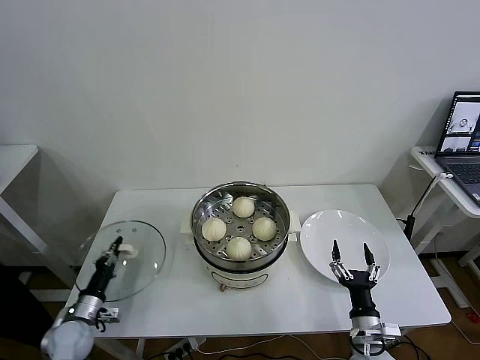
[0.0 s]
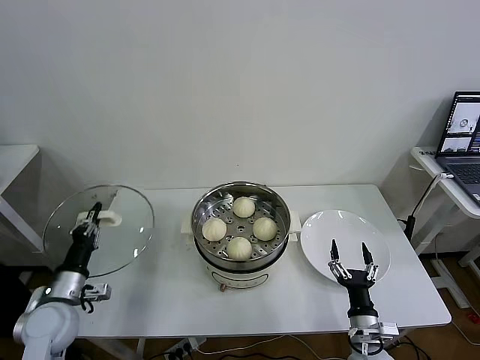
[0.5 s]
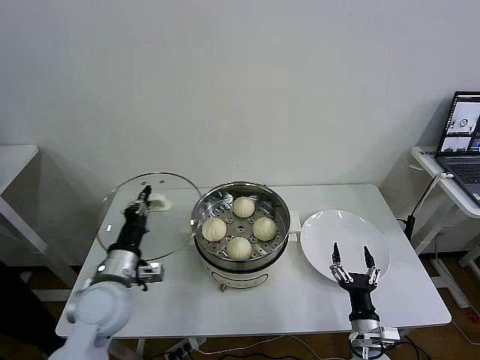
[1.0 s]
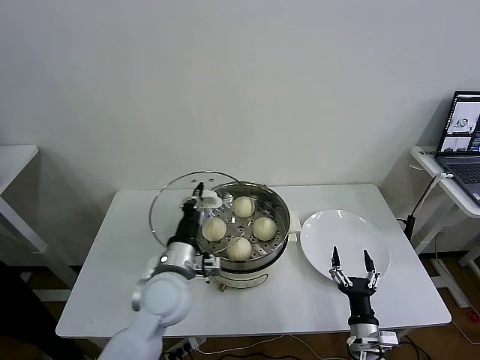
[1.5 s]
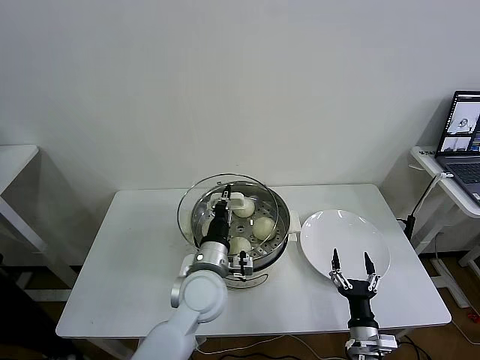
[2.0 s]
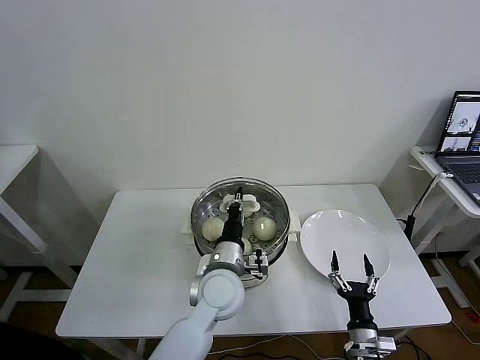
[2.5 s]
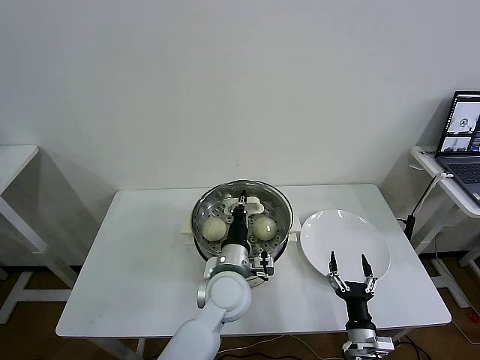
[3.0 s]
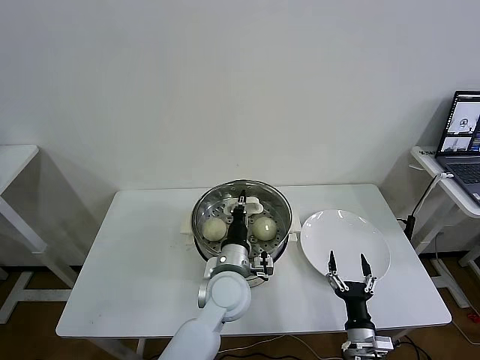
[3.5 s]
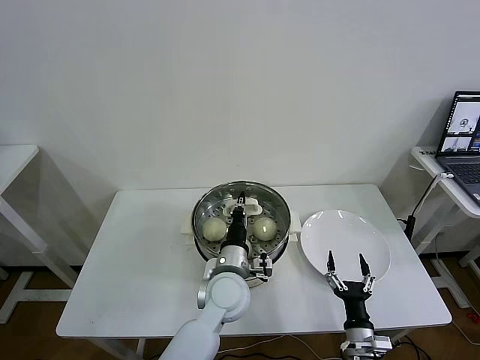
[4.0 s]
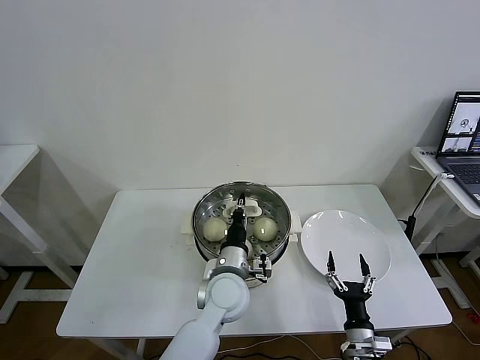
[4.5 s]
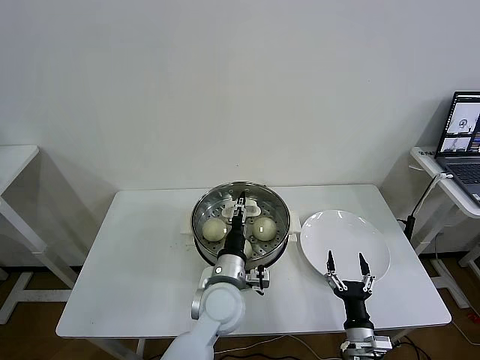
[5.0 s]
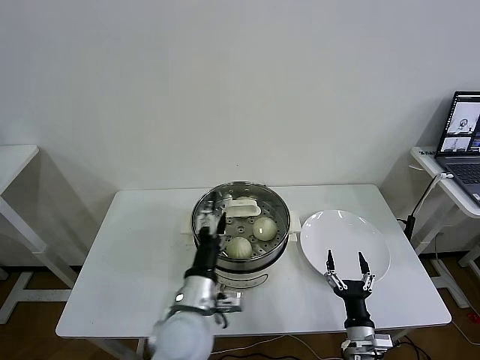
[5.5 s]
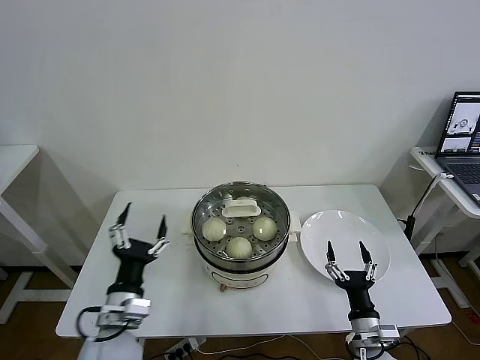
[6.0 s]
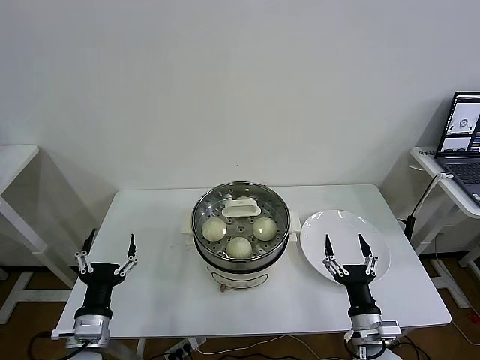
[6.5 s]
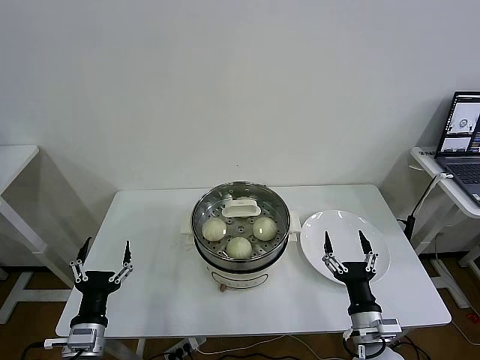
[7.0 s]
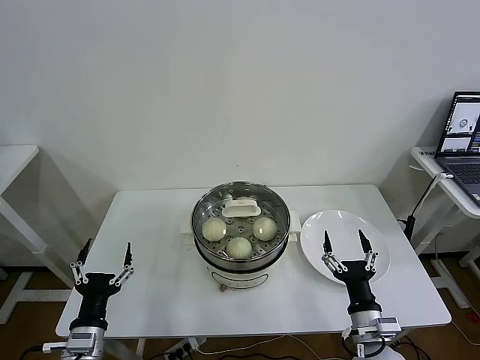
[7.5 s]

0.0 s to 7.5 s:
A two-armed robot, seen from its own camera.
Task of the whole recording: take steamed baozi put them in steamer then cover it.
Step, 0.0 to 5.0 s: Place the pot lid on the steamer with left gripper.
0.0 to 2.0 s: The left gripper travels to the right and upward by approximately 40 cm.
2.0 to 4.0 s: The left gripper travels to the right by roughly 5 cm.
4.0 to 5.5 s: The left gripper moves backward and to the left, some 10 cm, and opens up.
5.5 to 7.5 s: The right gripper heads upward, covering about 10 cm; the left gripper is displaced to the left by some 20 cm.

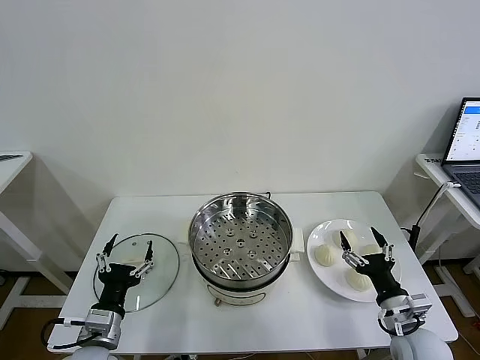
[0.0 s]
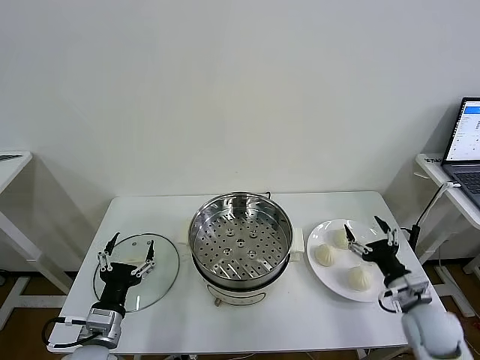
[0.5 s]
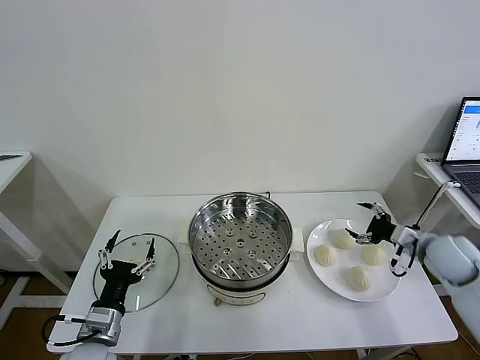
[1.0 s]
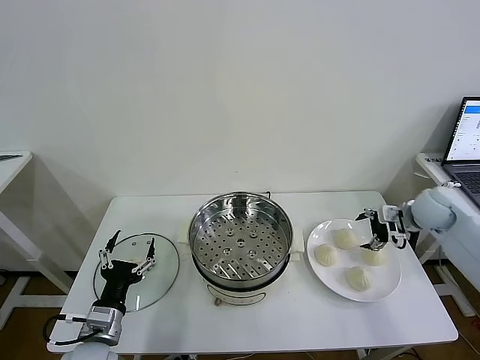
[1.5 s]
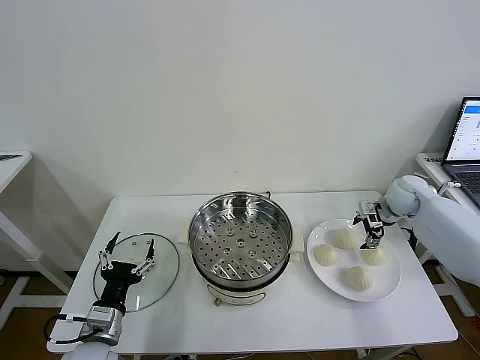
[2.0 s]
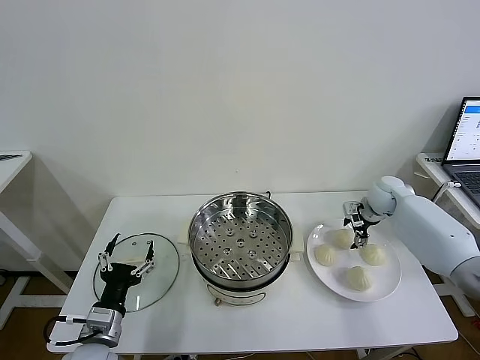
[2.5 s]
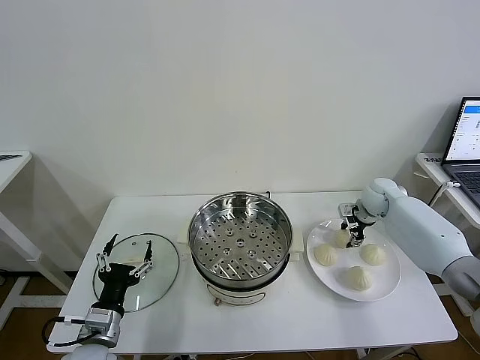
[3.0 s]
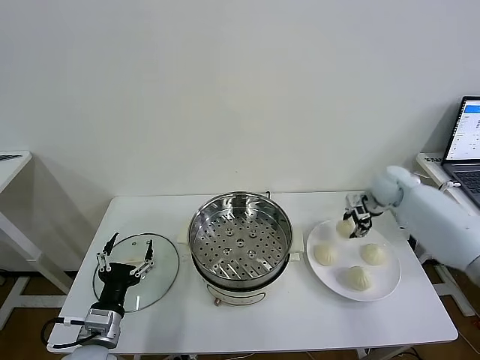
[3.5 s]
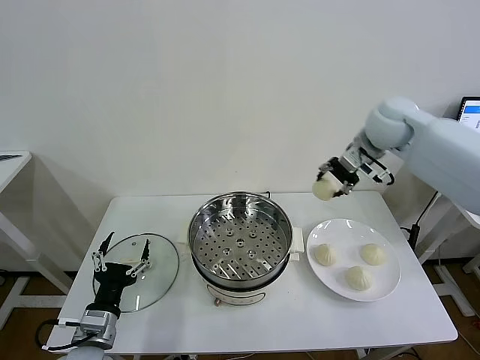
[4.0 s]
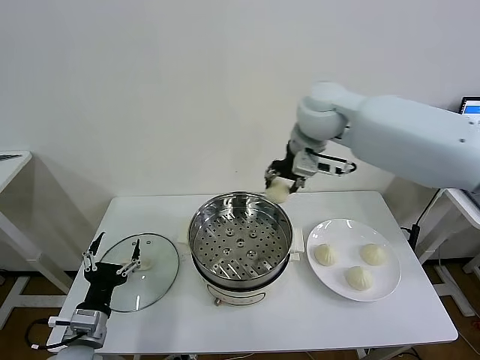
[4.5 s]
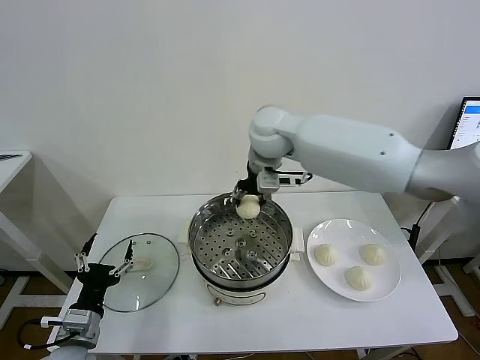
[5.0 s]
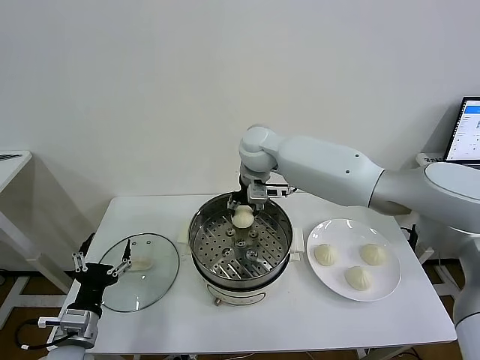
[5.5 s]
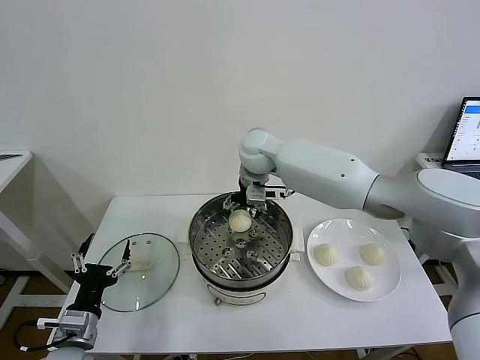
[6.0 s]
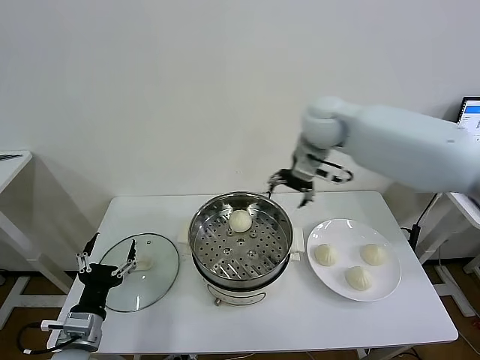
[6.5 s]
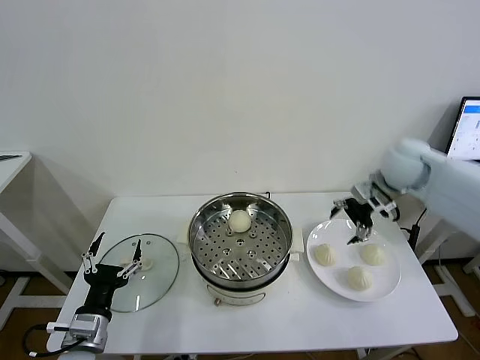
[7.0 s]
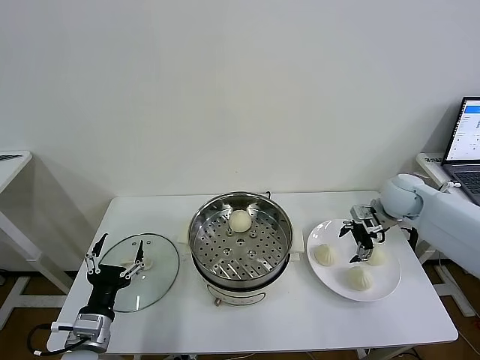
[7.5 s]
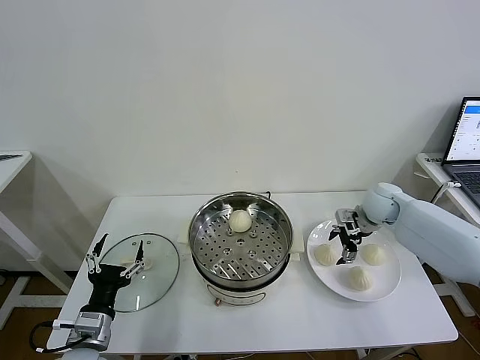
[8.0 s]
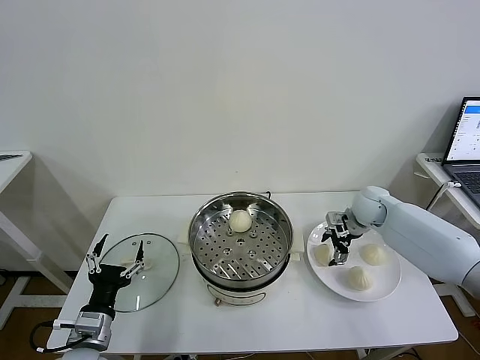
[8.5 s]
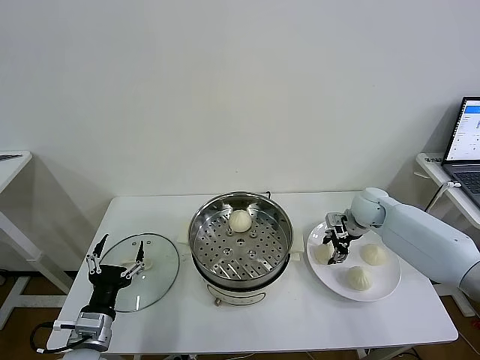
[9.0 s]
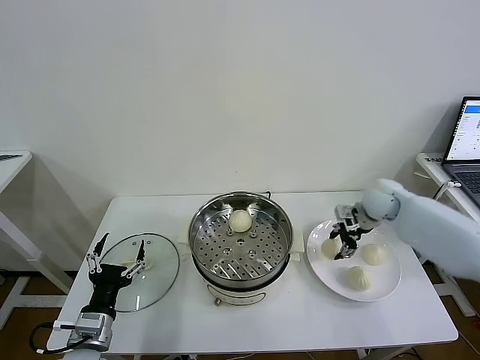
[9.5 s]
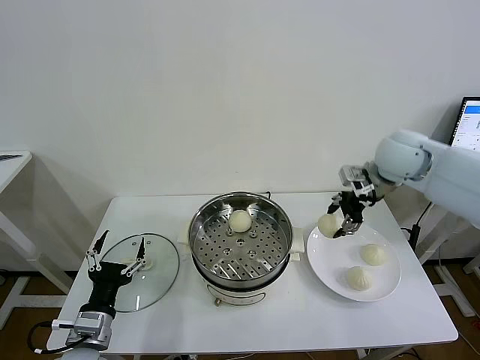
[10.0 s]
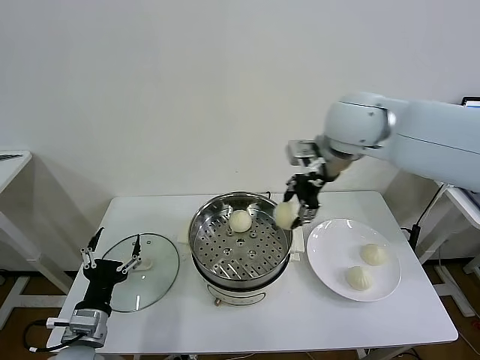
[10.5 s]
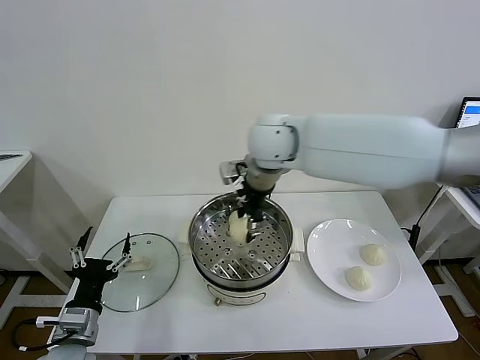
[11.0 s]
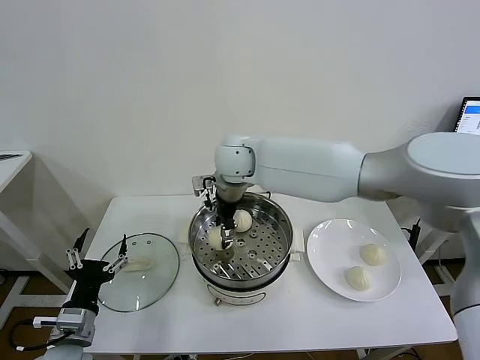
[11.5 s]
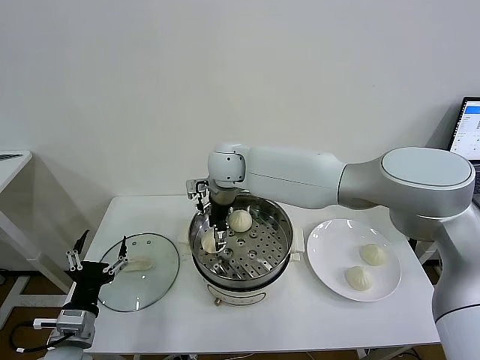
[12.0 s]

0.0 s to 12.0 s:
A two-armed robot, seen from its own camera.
Task of the whole recording: take steamed baozi put them in steamer then cover it.
Step, 0.0 to 2.5 s: Grasp the baozi in the plate with right gripper.
Step, 3.0 to 5.5 s: Place the baozi on the steamer with right gripper.
Step, 6.0 to 8.5 s: Grasp the baozi in the plate with right gripper.
Step, 9.0 to 12.0 s: Place the baozi on the steamer with right gripper.
2.0 to 4.0 s: The right gripper goes some 30 cm upward and to the left, and closes its fingers.
4.0 to 6.0 s: The right gripper moves to the left and downward, approximately 20 cm, and opens.
6.0 to 8.0 s: The right gripper shifts about 35 cm to the right and downward.
8.0 to 10.0 s: The right gripper is displaced upward by approximately 20 cm, and closes its fingers.
10.0 to 12.0 s: The right gripper moves to the left, roughly 30 cm, and opens its fingers.

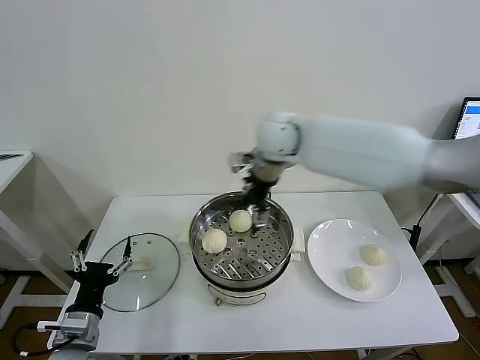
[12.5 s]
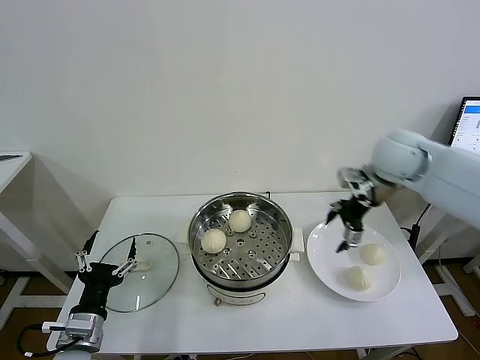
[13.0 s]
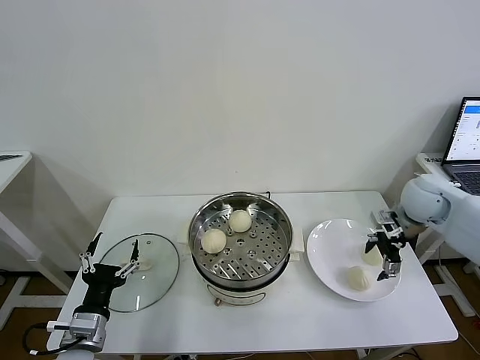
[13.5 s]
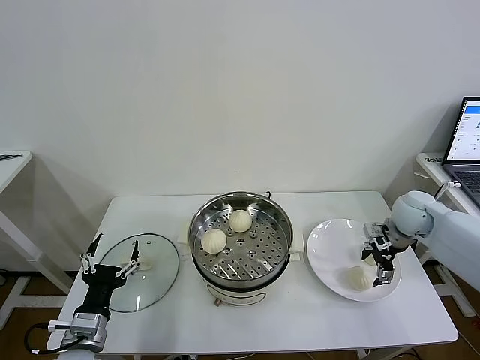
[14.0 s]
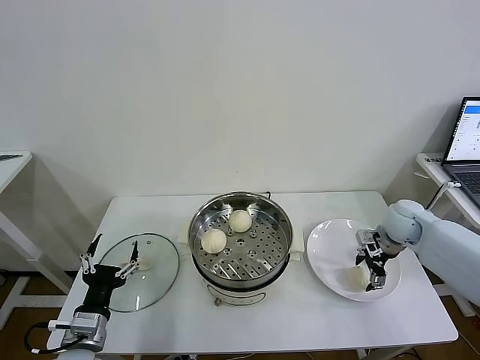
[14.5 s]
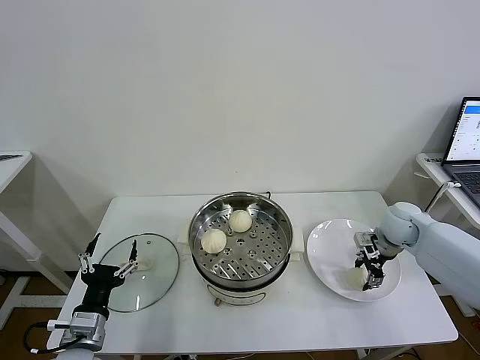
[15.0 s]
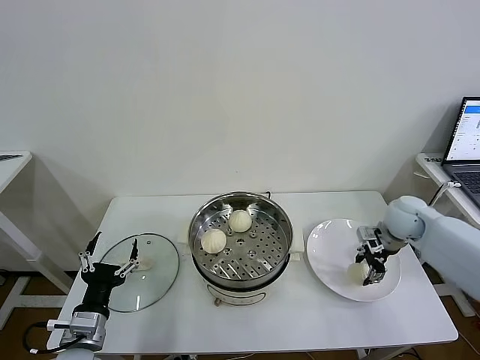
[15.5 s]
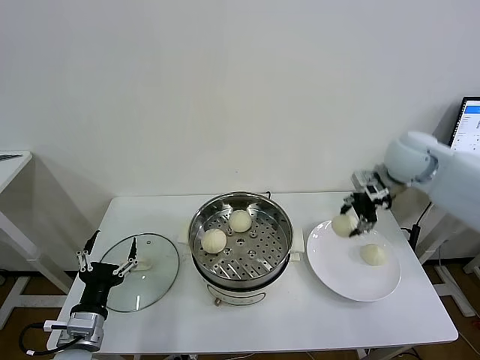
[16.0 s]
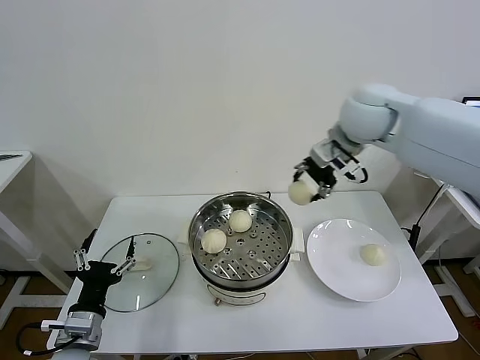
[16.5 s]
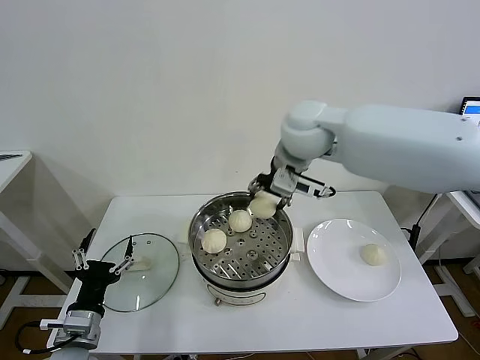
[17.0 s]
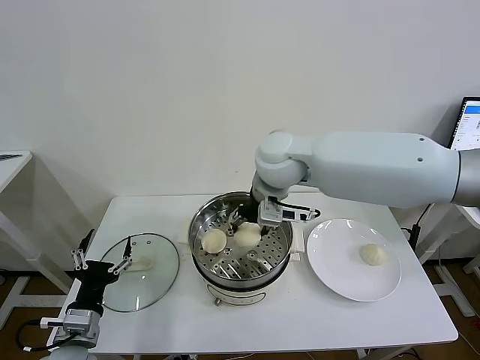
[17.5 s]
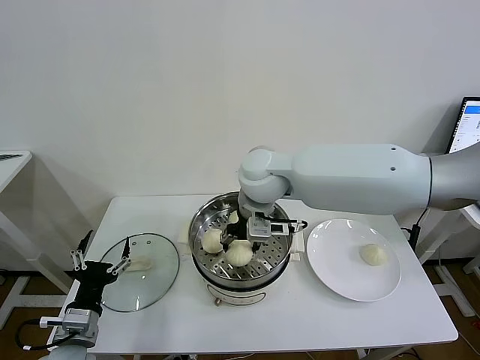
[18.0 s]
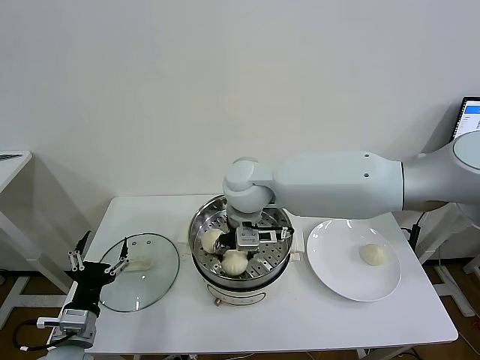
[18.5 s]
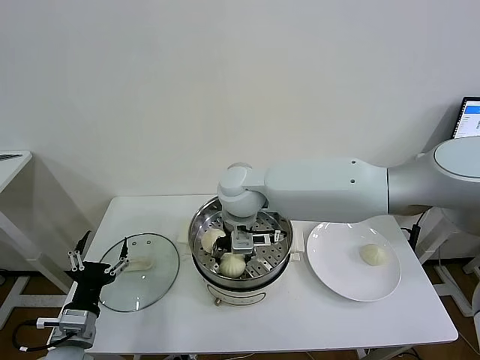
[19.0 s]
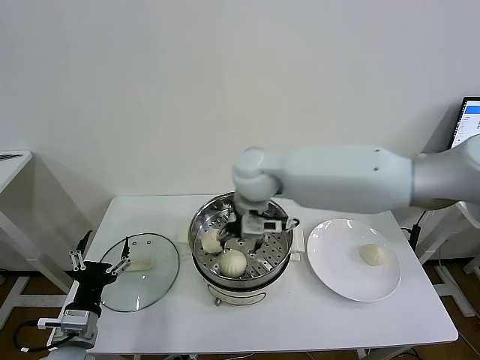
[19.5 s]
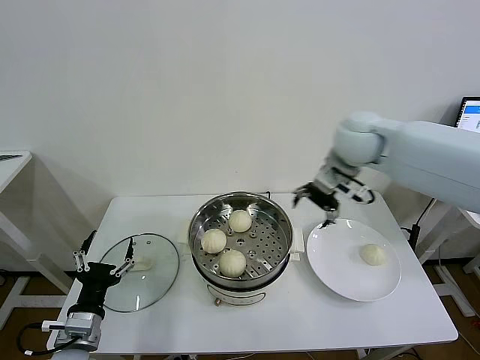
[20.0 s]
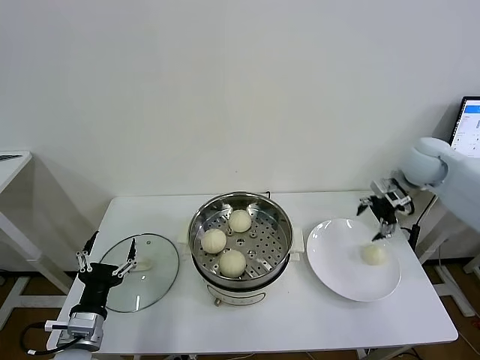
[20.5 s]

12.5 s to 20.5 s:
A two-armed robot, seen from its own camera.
Task of the whole recording: take steamed baozi put them in steamer then cover it.
Step, 12.5 to 15.0 s: Grasp the baozi in the plate with right gripper.
Step, 15.5 to 19.0 s: Place the baozi on the steamer with right gripper.
12.5 to 14.5 s: The right gripper is displaced to the right and downward by about 35 cm.
14.5 to 16.5 s: The right gripper travels upward and to the left by about 35 cm, and closes up.
16.5 to 18.5 s: The right gripper moves to the left and downward, some 25 cm.
18.5 to 20.5 s: The right gripper travels to the right by some 40 cm, and opens up.
